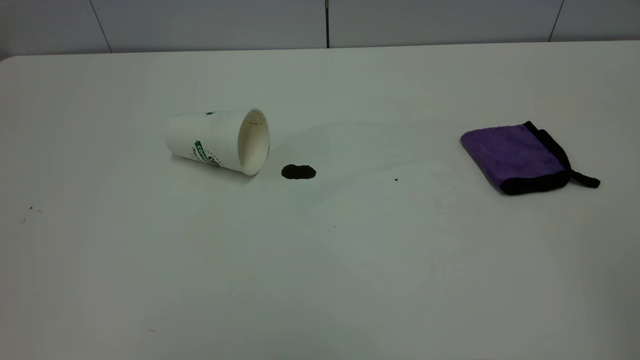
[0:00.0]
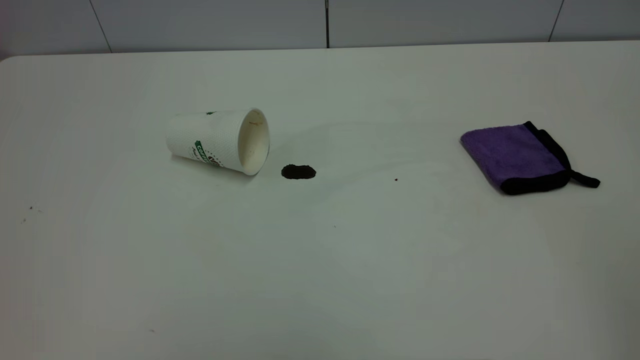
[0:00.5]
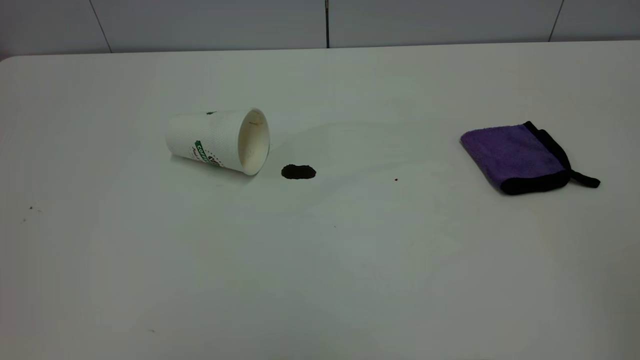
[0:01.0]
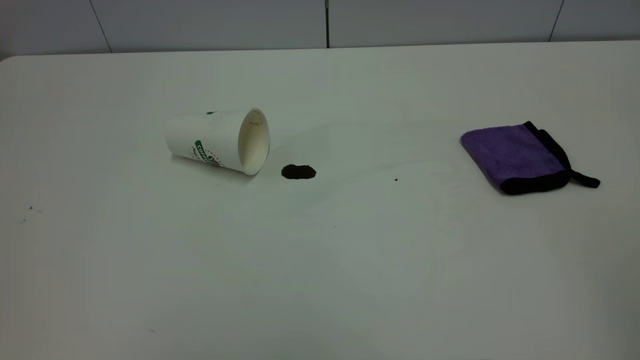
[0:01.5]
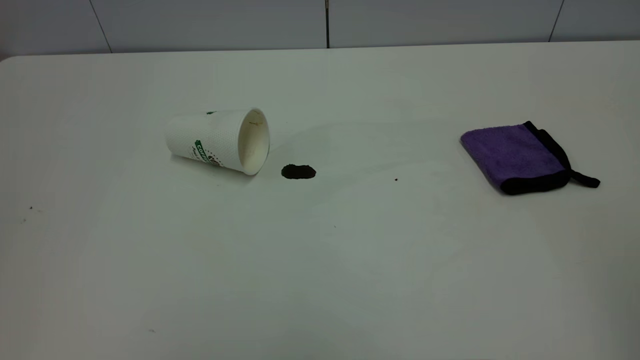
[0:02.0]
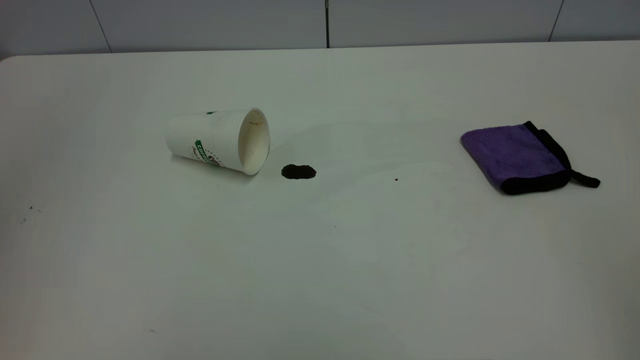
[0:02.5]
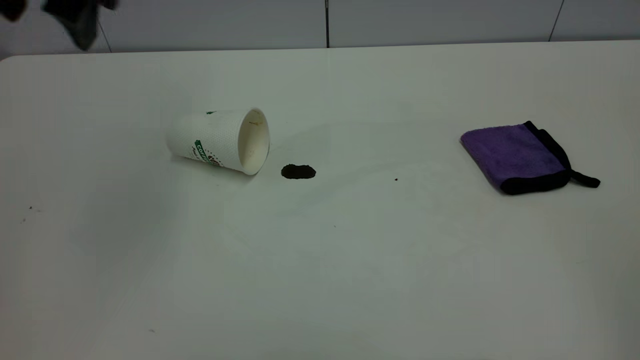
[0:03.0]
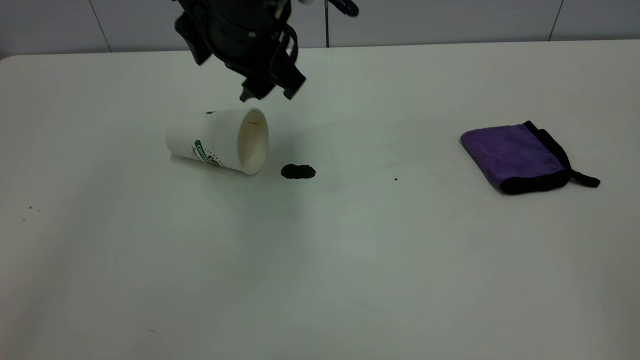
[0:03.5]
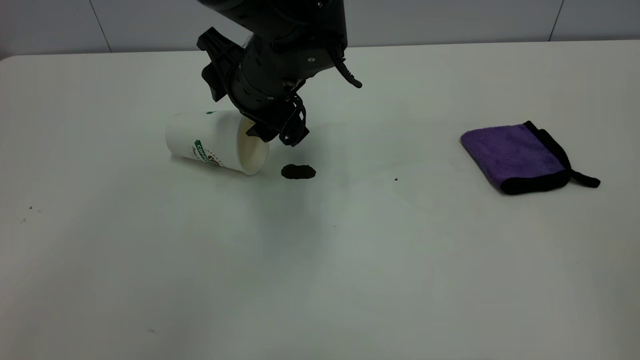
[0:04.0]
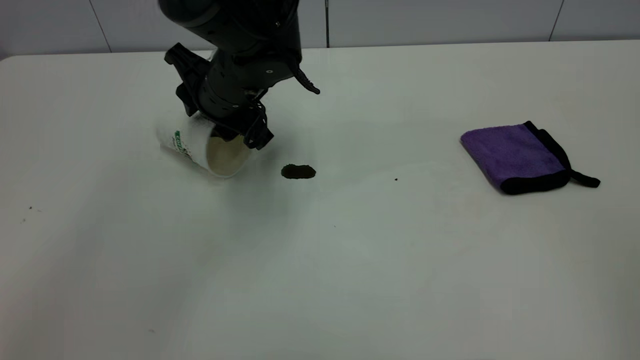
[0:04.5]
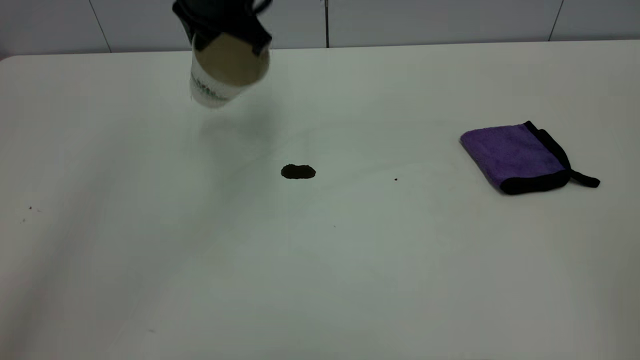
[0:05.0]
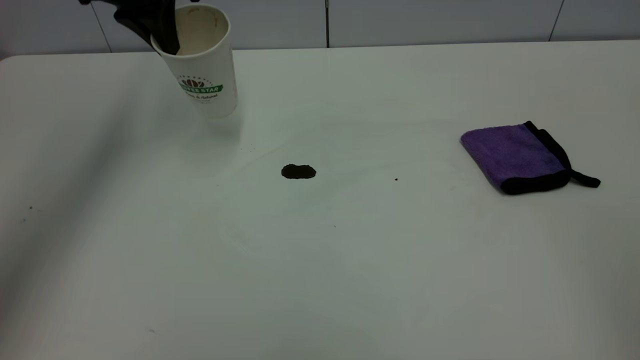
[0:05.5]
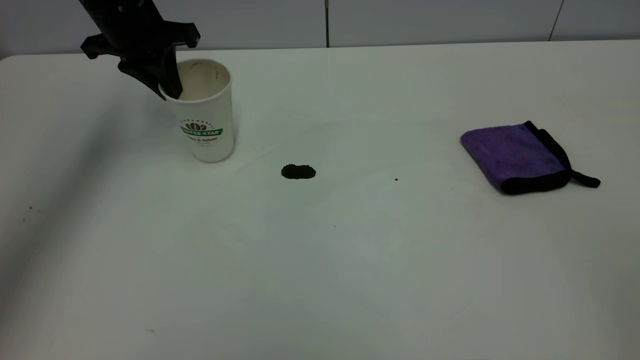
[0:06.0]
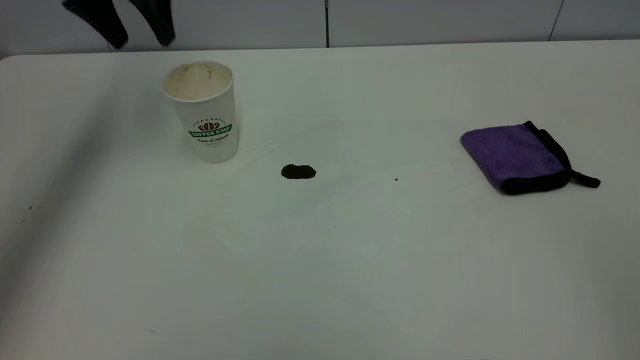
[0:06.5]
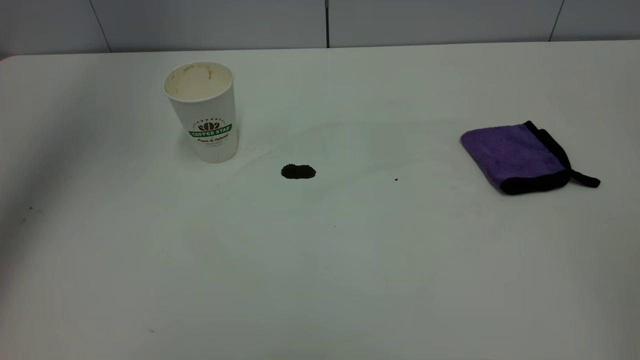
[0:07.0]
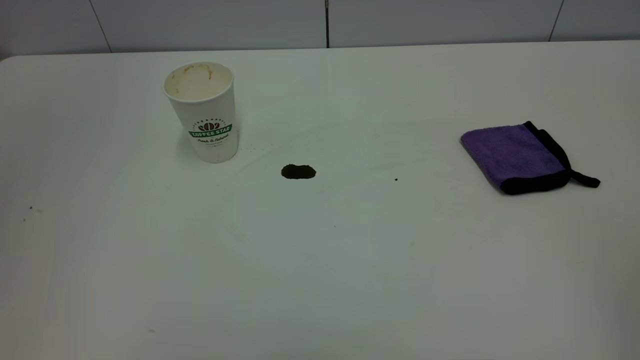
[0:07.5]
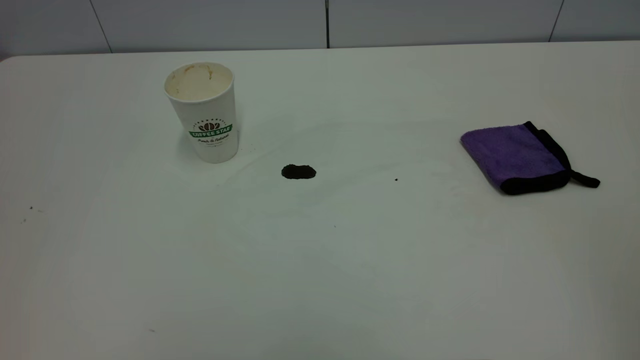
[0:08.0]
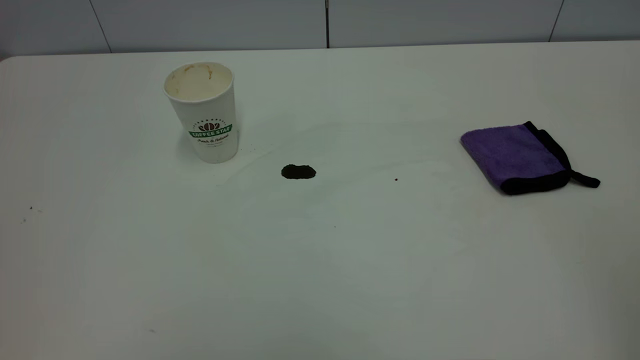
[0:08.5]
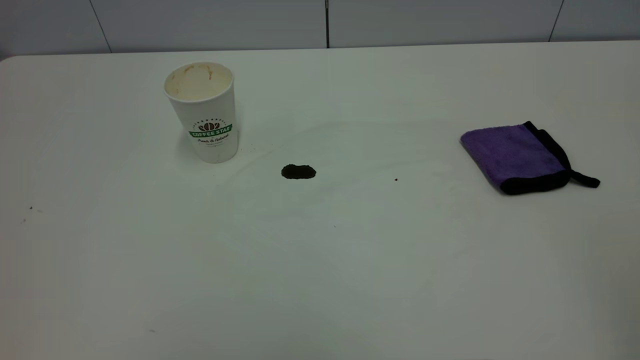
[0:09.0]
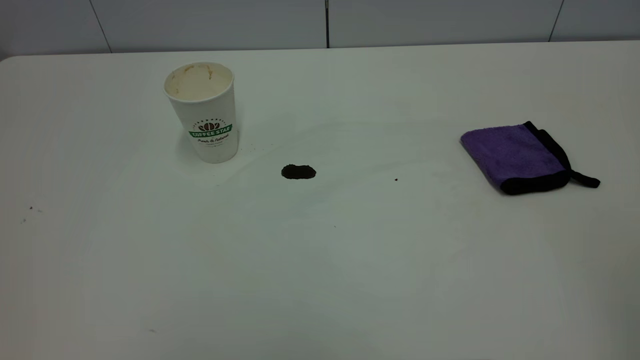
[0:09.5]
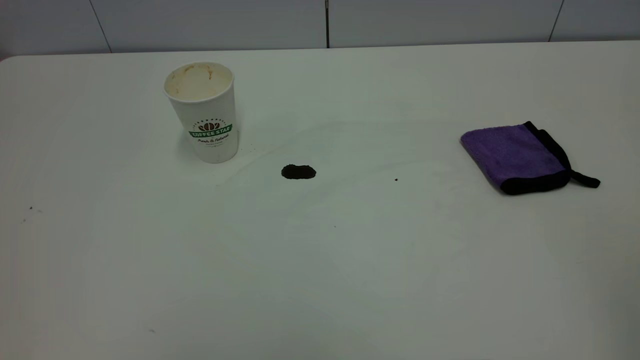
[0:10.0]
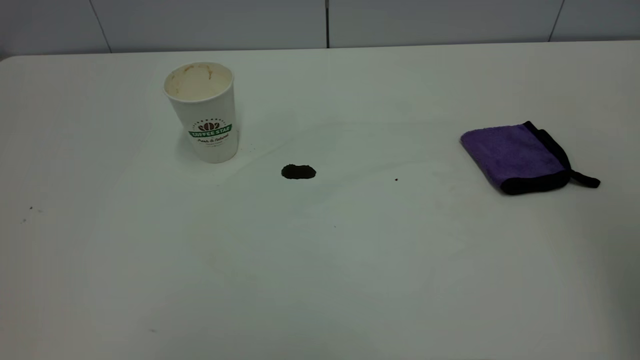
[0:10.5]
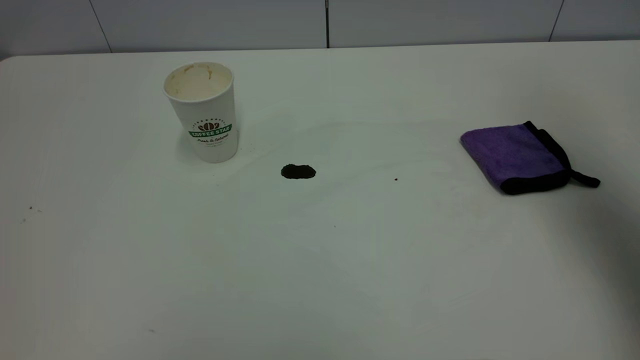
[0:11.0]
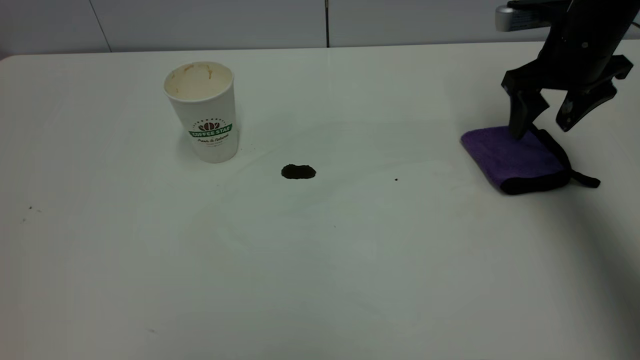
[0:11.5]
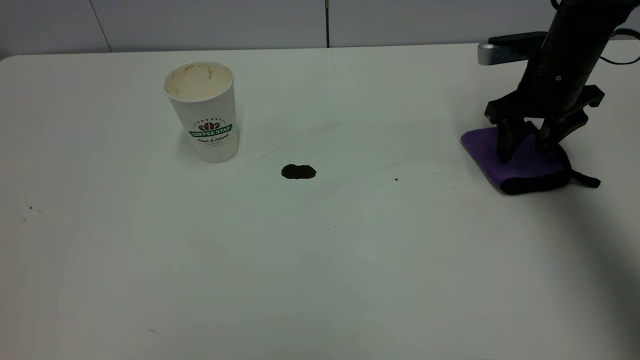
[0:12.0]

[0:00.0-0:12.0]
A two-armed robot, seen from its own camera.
Task of the whole recording: the left gripper pick up the fallen cup and place it upright, the right gripper grasp the purple rag and wipe the coffee stain on the table, the right gripper put the purple rag back in its original position.
Step, 0:00.0 to 0:06.0: Stand the paper cup upright.
0:02.0 to 0:04.0: The left gripper heads forward, to the right and downward, covering roughly 50 cm, and opens its fingers.
0:04.0 to 0:06.0: The left gripper heads to the left and forward, covering approximately 20 cm, and closes.
0:06.0 to 0:08.0: The left gripper shifts roughly 60 cm backward and upward, and opens its fingers.
0:10.0 to 0:12.0: The right gripper is displaced forward and downward by roughly 50 cm, and opens up.

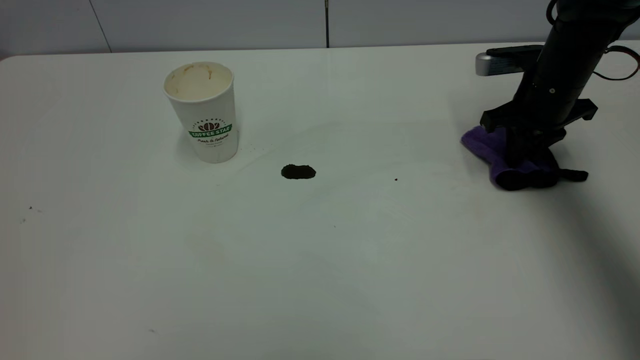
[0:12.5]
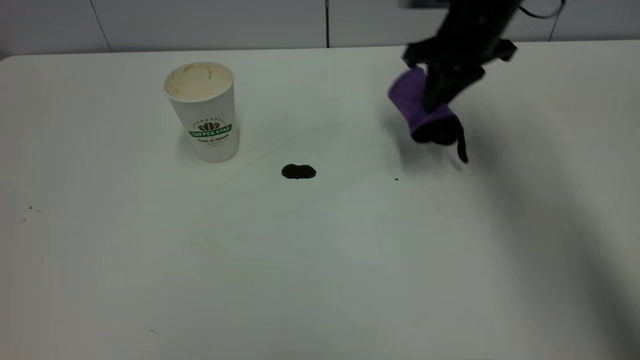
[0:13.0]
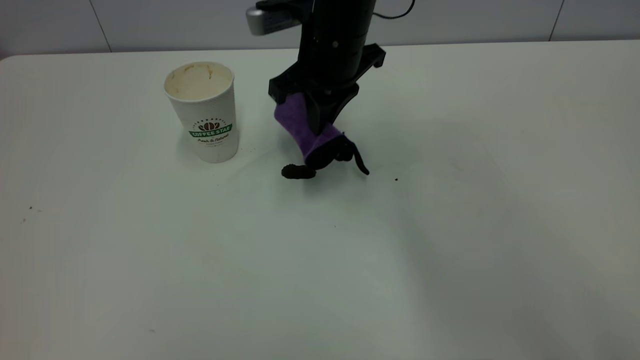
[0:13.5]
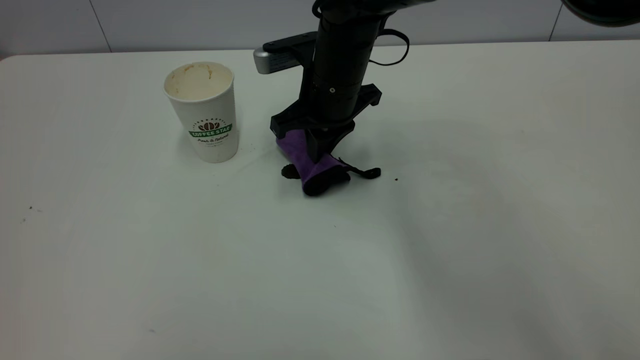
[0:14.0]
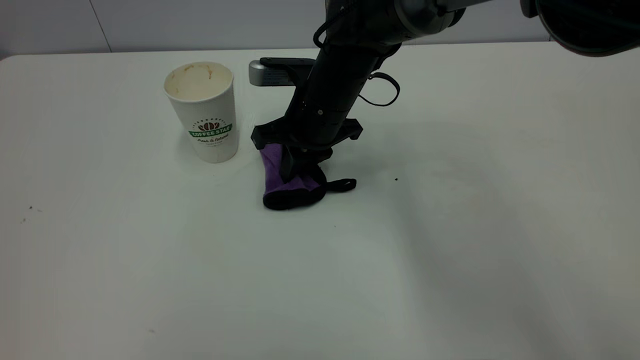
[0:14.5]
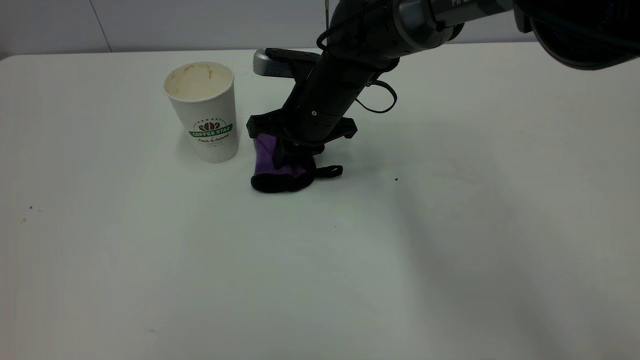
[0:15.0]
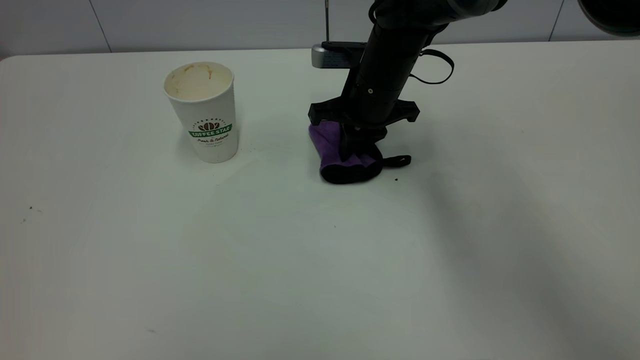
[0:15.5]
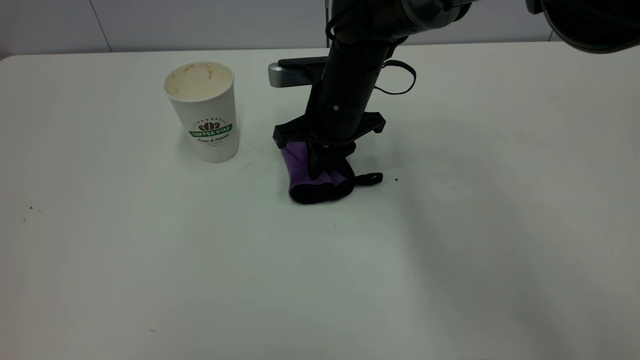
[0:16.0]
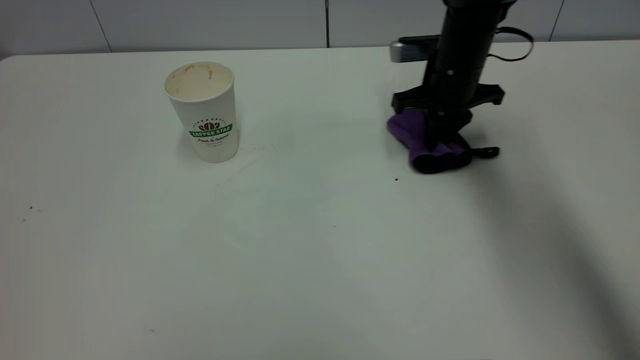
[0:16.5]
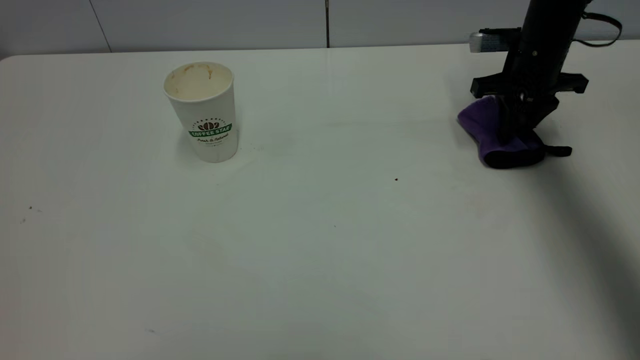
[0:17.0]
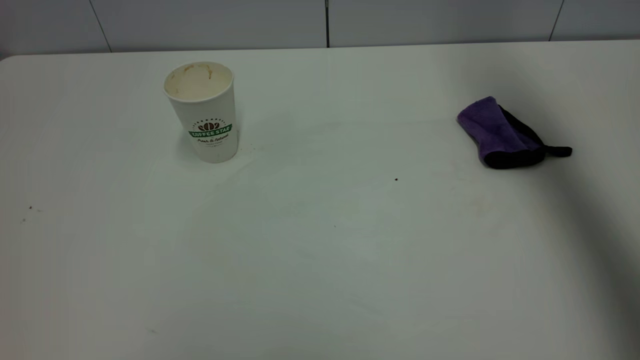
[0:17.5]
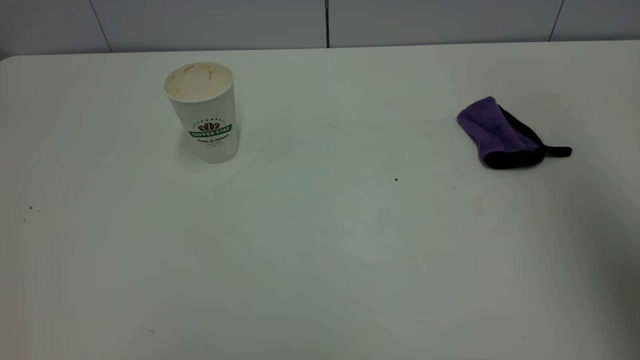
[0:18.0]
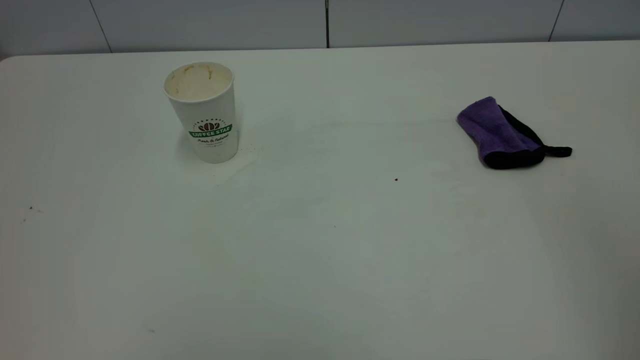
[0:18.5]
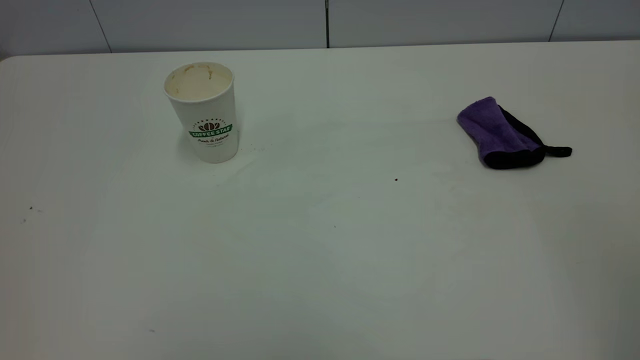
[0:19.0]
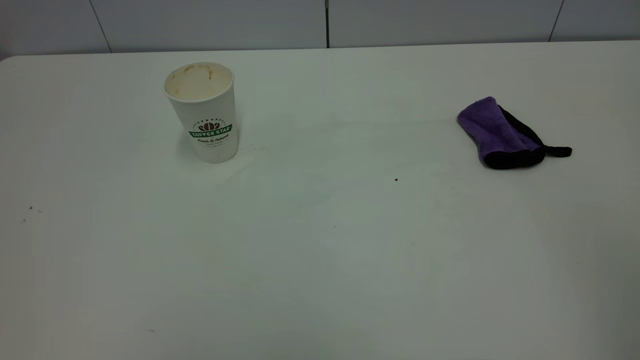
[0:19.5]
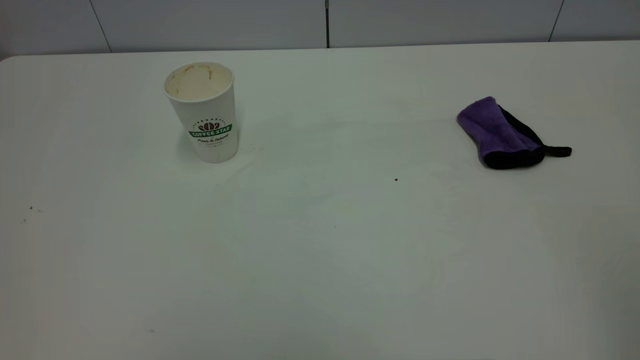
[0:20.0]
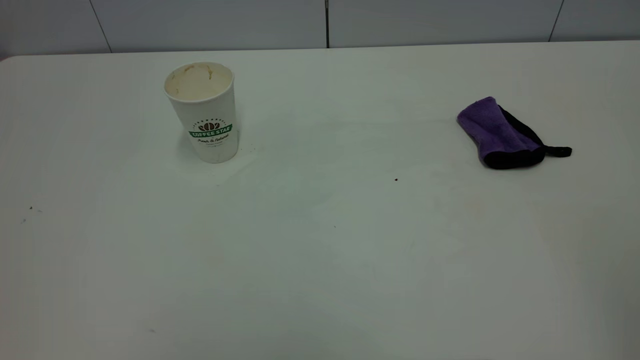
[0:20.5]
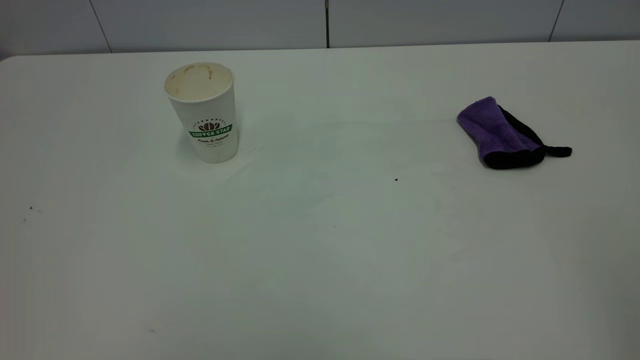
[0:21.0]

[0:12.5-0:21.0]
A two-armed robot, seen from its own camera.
Task of the whole recording: the left gripper pick up the fallen cup and place it upright, the right gripper grasp the purple rag and wipe the coffee stain on the table, the right gripper put the purple rag back in its original position.
Step, 0:12.5 to 0:17.0: Wipe the stains off the table with a rag.
0:12.5 to 0:14.5: The right gripper travels to the left by some 25 cm.
0:14.5 to 0:16.5: The right gripper goes left and right, some 15 cm each way, reversing 2 times.
0:16.5 to 0:19.0: The right gripper goes some 50 cm backward and upward, and opens up.
